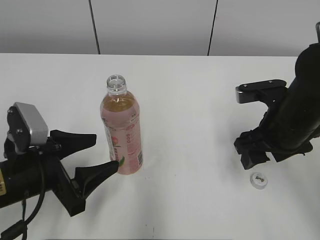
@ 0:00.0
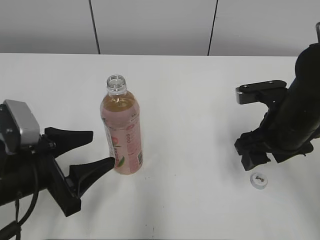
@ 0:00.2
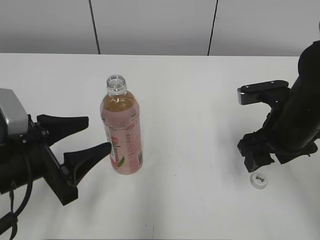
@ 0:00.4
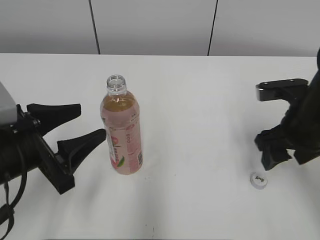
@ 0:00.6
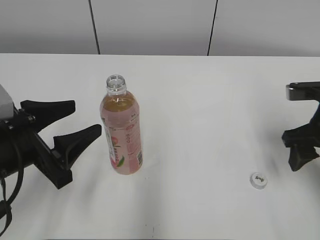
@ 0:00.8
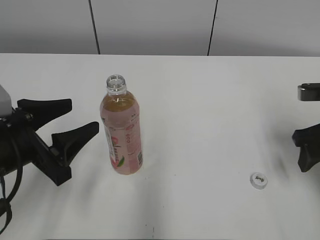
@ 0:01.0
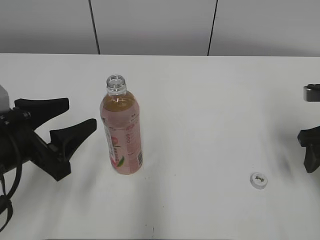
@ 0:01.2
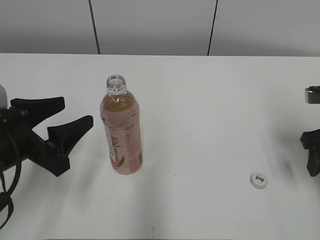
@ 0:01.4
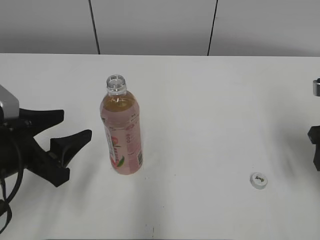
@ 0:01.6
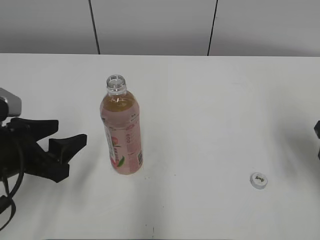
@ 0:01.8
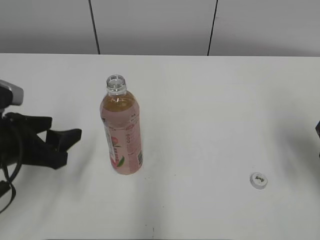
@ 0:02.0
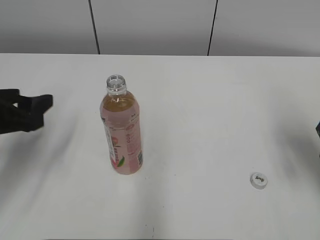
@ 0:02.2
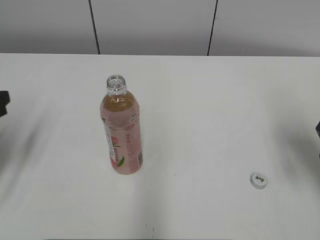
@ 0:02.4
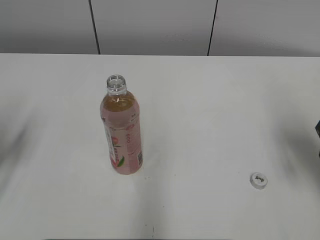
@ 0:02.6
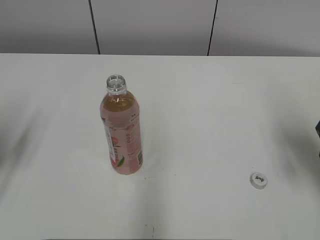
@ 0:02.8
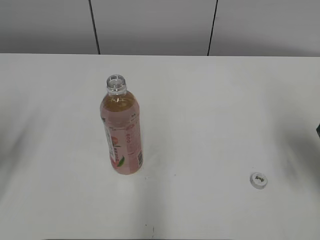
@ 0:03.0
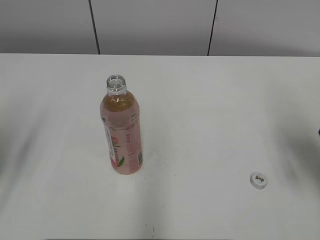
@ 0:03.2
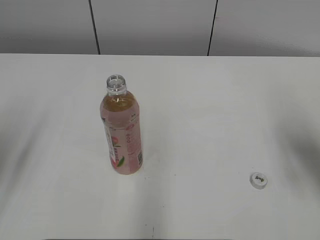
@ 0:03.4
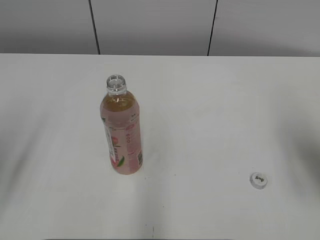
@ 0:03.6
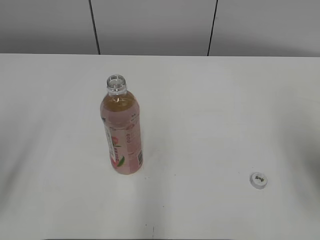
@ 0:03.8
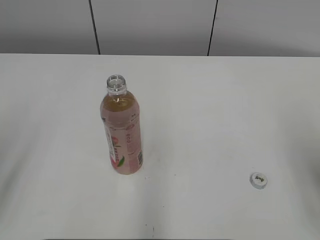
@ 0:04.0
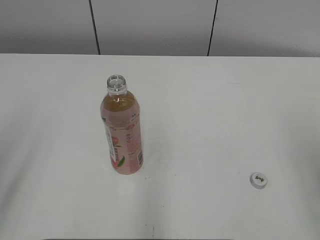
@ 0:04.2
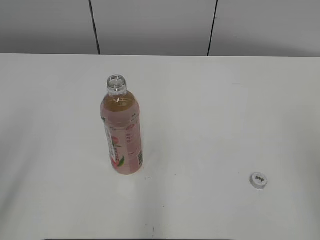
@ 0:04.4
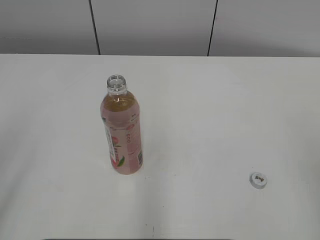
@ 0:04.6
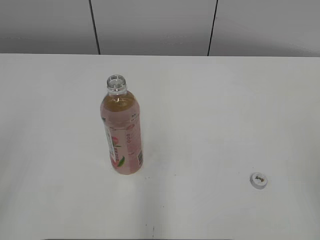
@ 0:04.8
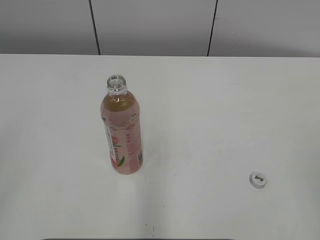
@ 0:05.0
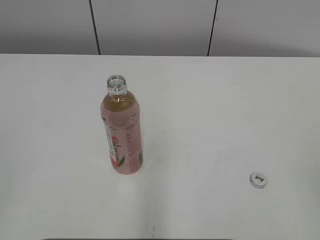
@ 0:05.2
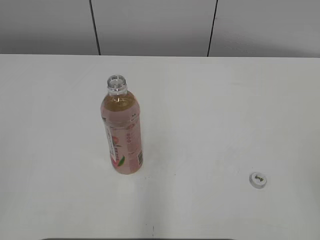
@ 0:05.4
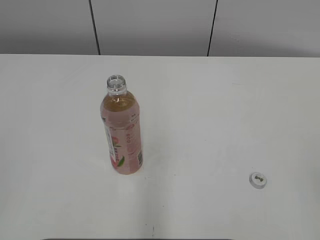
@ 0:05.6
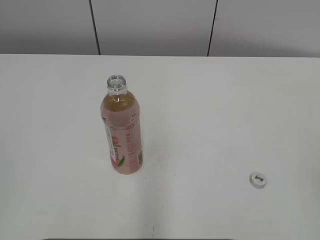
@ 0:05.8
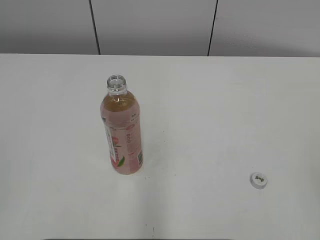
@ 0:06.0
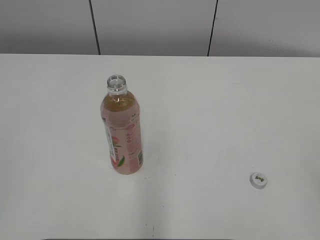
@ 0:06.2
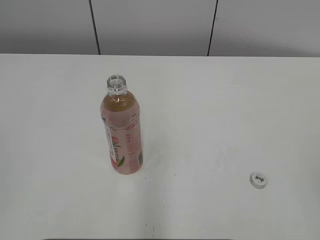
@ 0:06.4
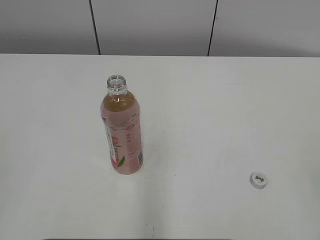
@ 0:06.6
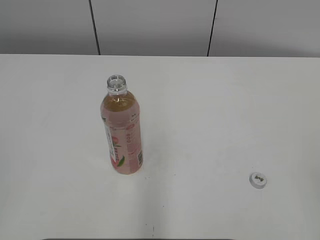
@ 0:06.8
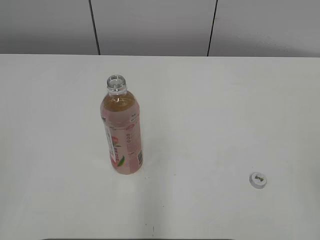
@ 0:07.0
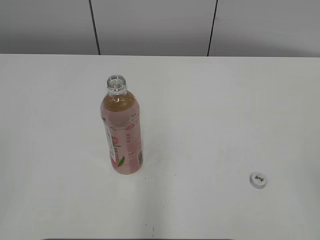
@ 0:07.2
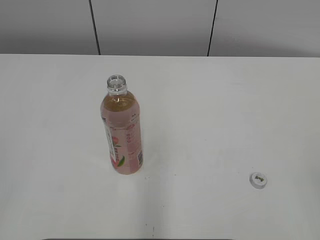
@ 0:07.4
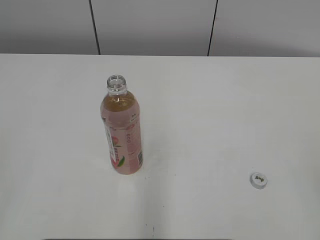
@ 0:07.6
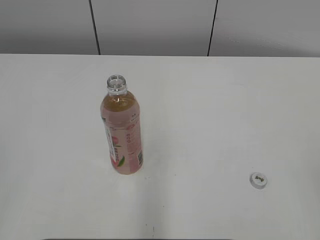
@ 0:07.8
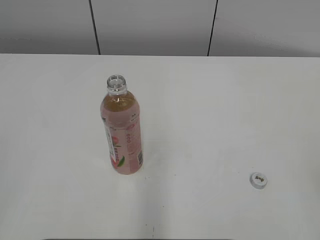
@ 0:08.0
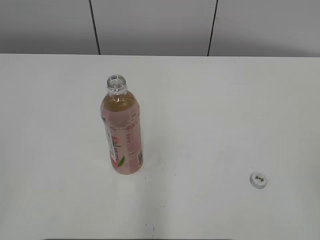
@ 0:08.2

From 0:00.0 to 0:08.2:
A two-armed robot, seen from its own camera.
From 0:00.0 to 0:01.6: The right gripper is displaced to the right by about 10 cm.
From 0:01.6 to 0:03.2: The left gripper travels to the left and upward by some 10 cm.
From 0:03.2 to 0:05.0: The left gripper travels backward and upward by some 15 cm, and closes, while the right gripper travels backward by some 20 cm.
